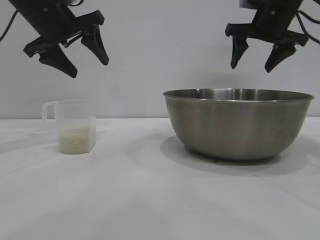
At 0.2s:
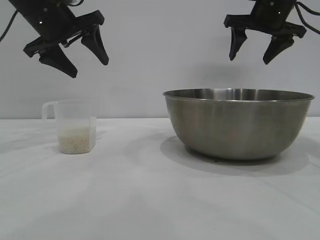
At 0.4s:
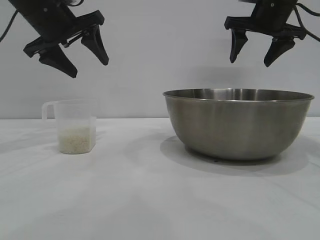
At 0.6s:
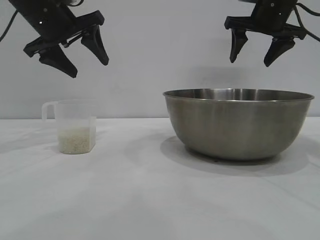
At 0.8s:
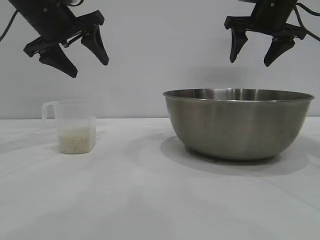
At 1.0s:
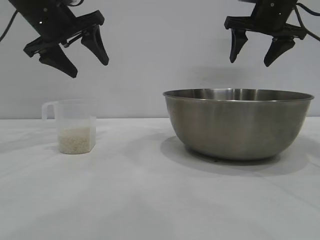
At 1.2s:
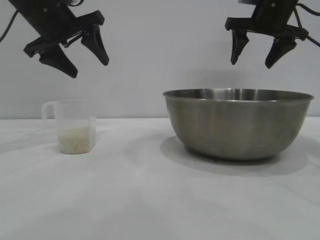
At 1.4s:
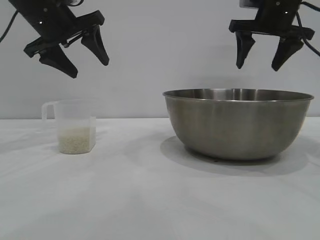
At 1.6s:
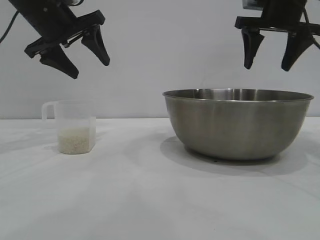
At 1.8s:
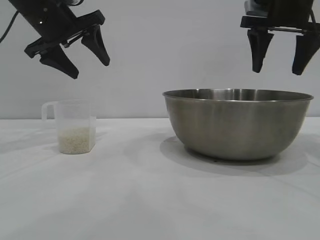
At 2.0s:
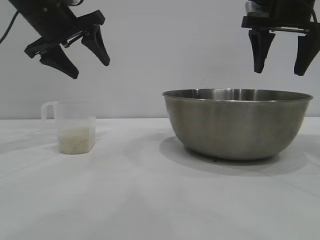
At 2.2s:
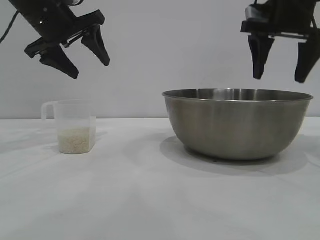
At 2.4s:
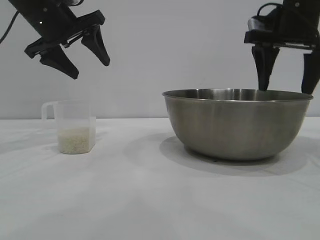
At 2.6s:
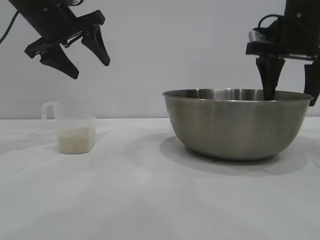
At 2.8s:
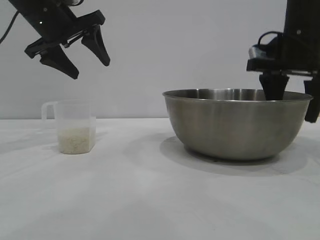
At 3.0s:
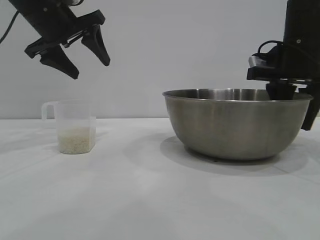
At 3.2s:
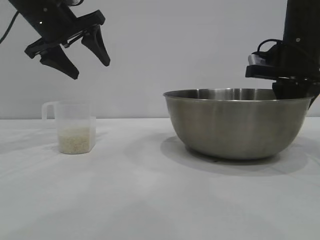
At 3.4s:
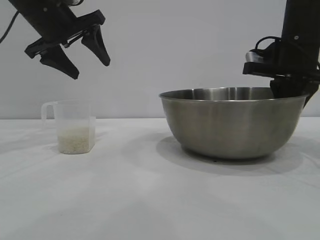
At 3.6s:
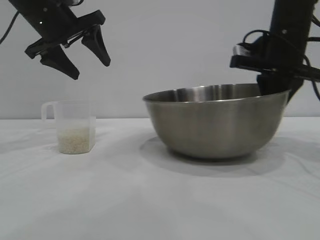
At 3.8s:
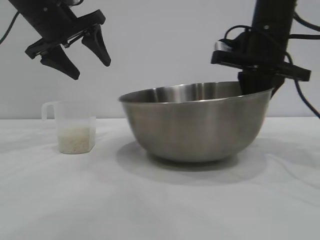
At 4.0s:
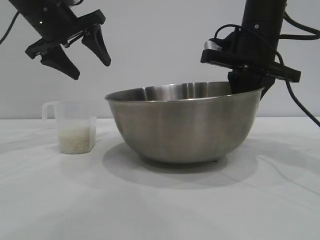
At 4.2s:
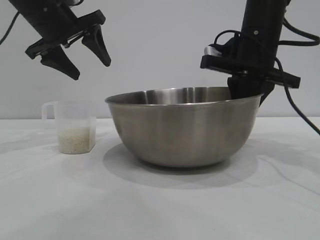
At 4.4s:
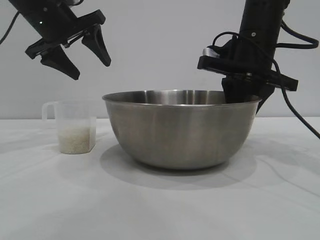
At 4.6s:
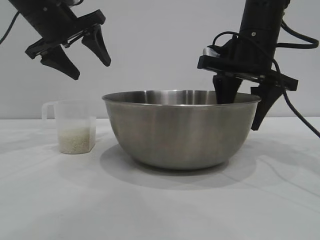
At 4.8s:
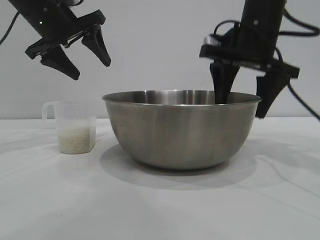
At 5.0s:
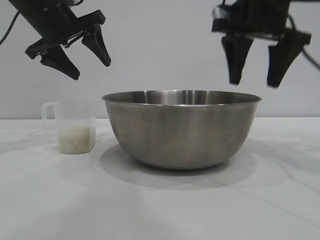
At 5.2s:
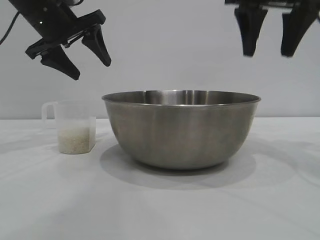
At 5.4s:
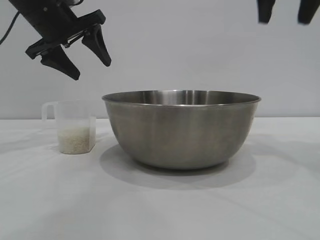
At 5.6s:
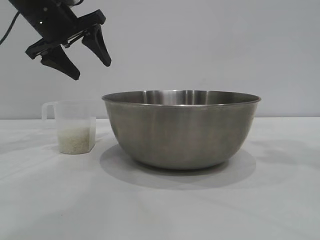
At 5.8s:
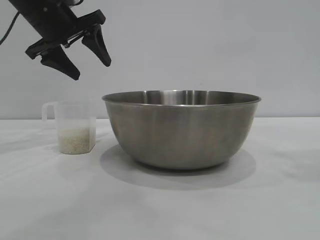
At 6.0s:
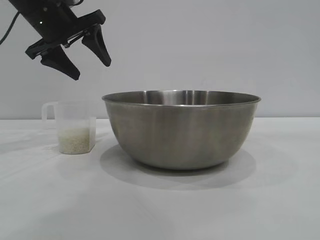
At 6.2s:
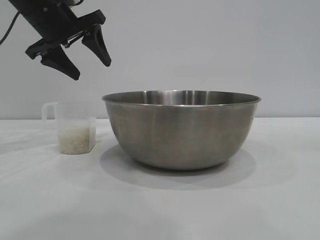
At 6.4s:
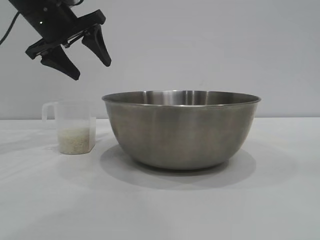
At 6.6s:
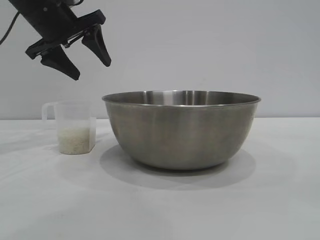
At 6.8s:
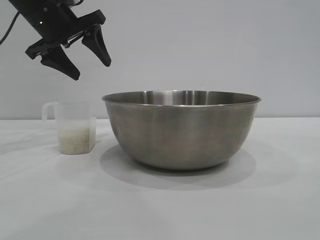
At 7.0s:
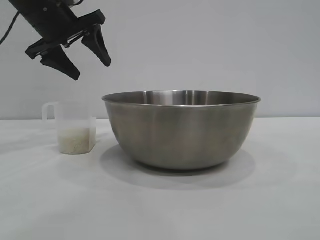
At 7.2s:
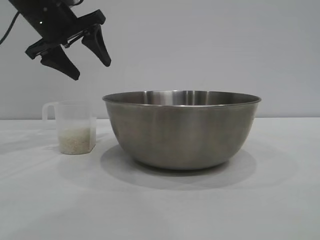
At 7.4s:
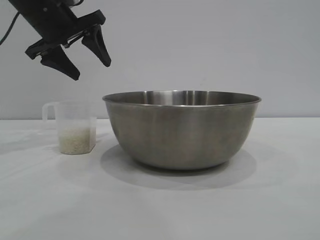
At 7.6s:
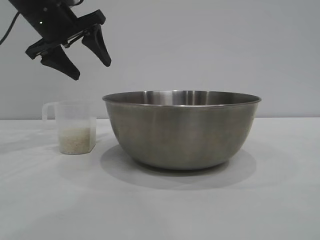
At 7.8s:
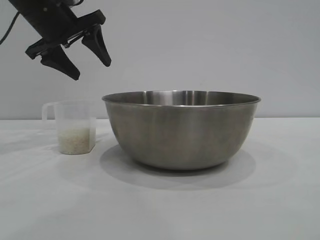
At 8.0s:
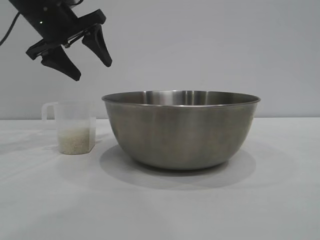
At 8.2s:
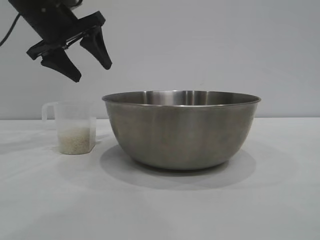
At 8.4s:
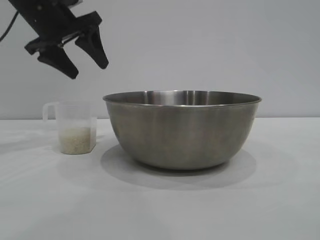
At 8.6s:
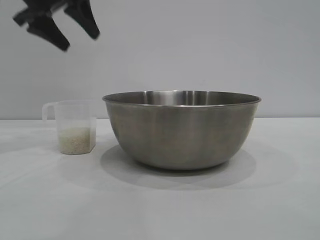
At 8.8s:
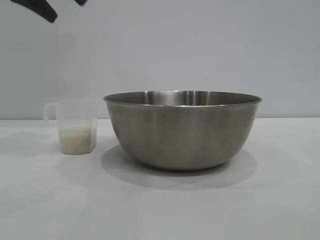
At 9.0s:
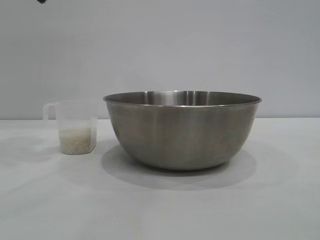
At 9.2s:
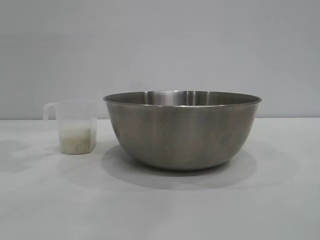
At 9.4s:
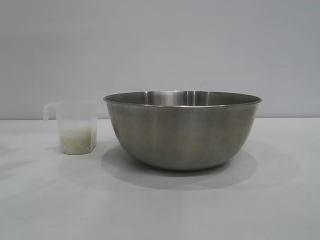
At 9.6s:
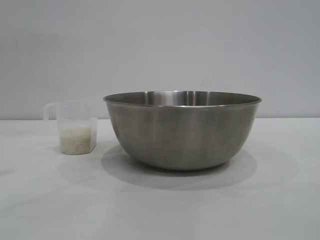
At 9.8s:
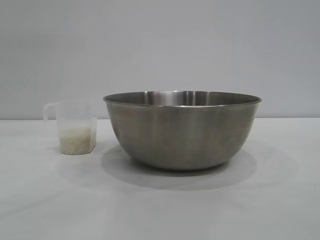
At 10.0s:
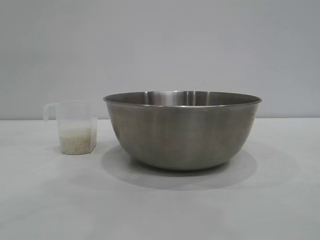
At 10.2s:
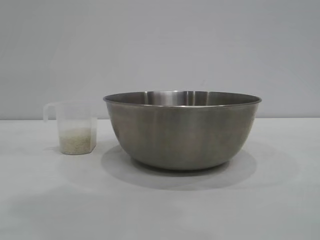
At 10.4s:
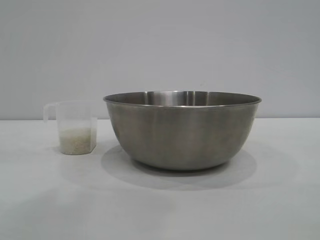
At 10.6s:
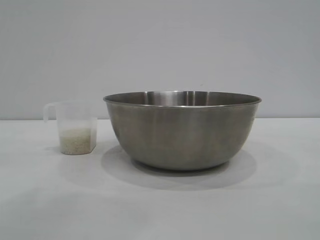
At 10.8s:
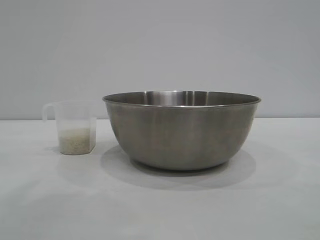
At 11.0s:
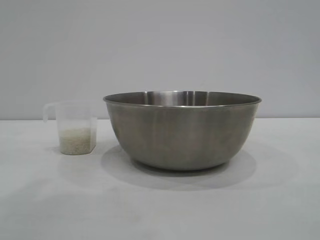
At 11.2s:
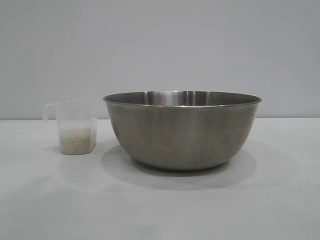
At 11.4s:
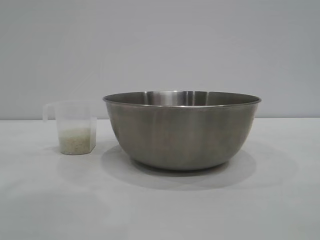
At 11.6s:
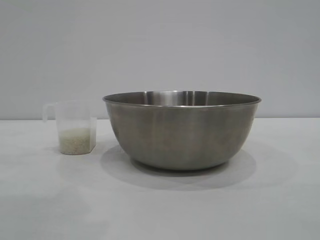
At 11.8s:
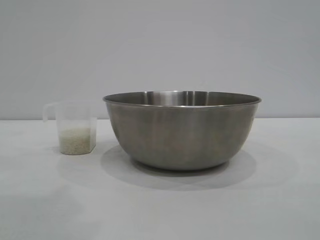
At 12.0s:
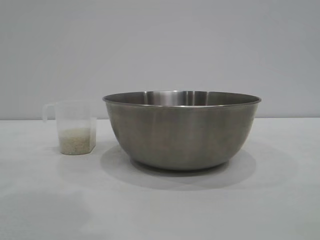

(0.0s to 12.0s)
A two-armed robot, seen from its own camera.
Task of the whole recording: the right gripper grasp the rice container and place it in the center of the table, the left gripper grasp the rice scoop and pour the rice into the rice container.
Step, 0.0s - 5.2s: Move the bowl to the center of view with the right gripper.

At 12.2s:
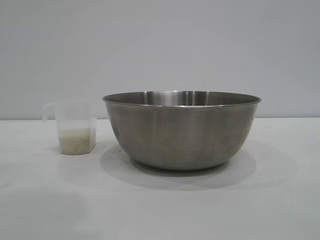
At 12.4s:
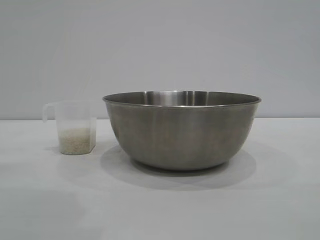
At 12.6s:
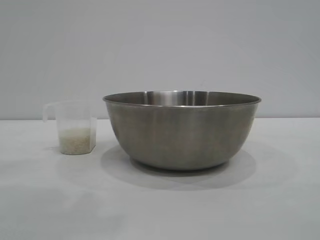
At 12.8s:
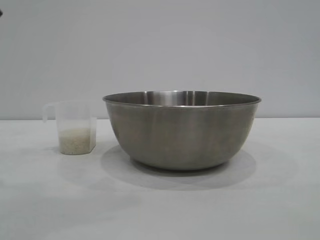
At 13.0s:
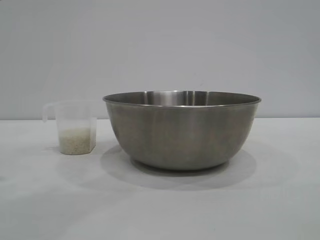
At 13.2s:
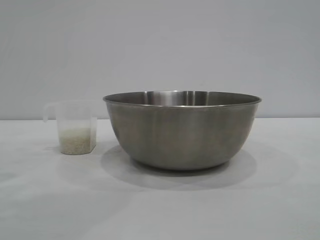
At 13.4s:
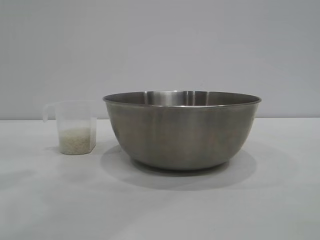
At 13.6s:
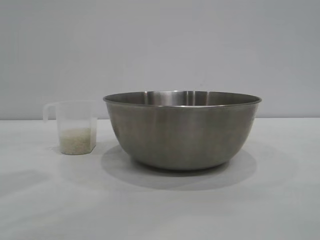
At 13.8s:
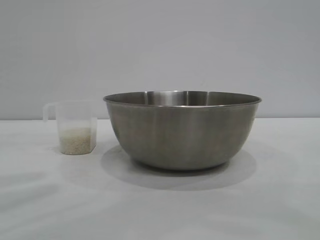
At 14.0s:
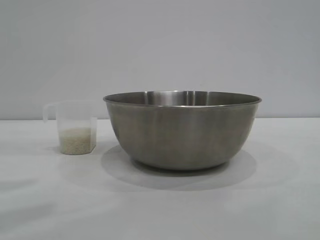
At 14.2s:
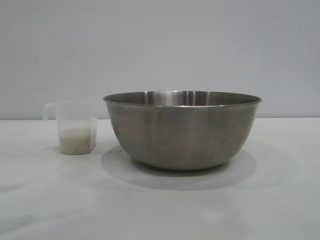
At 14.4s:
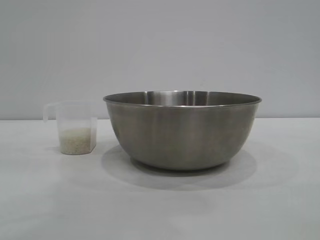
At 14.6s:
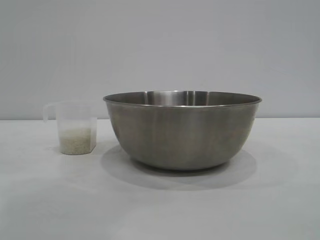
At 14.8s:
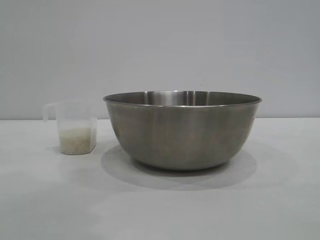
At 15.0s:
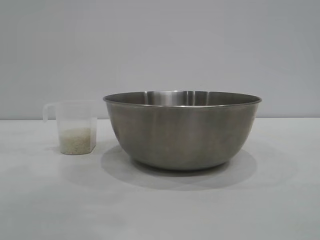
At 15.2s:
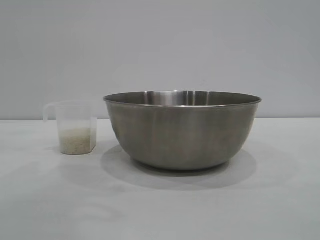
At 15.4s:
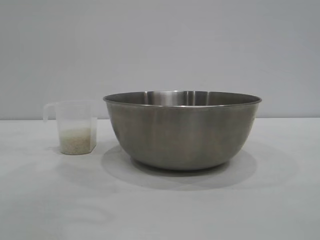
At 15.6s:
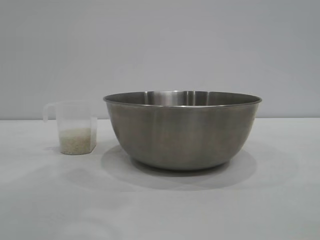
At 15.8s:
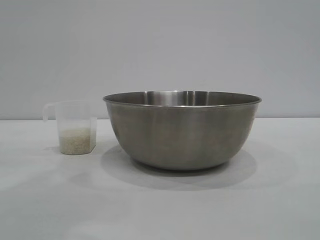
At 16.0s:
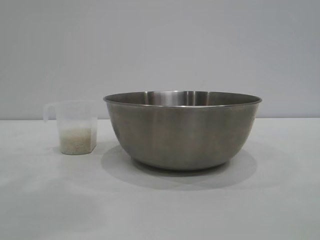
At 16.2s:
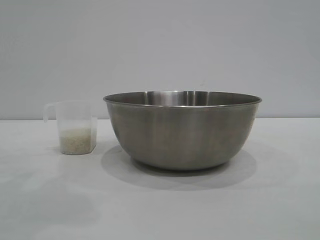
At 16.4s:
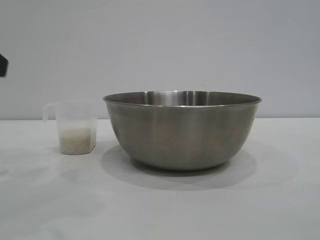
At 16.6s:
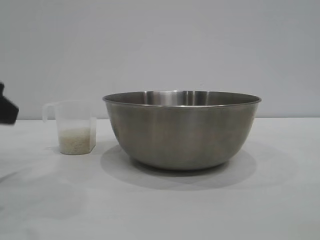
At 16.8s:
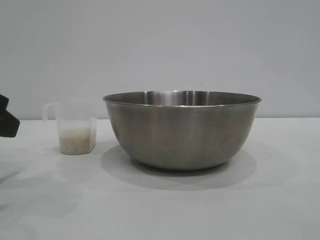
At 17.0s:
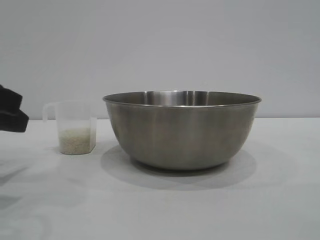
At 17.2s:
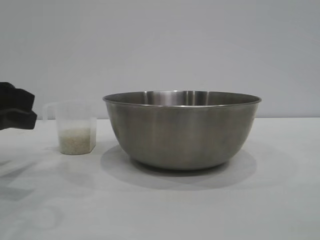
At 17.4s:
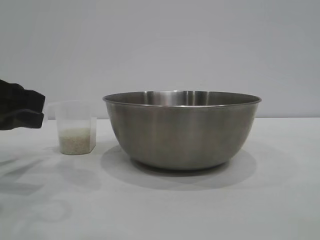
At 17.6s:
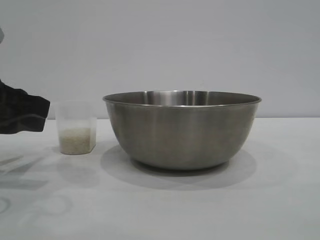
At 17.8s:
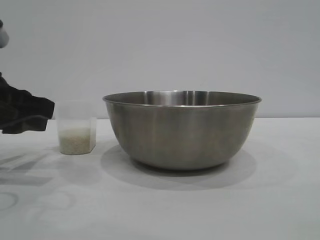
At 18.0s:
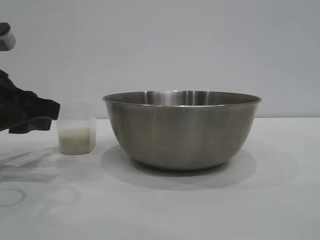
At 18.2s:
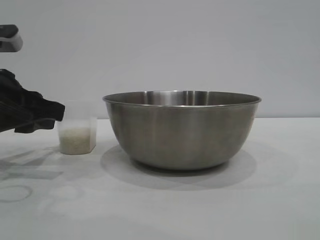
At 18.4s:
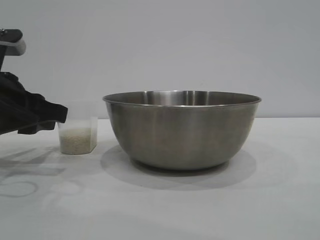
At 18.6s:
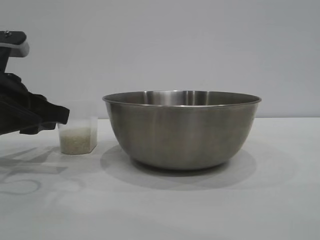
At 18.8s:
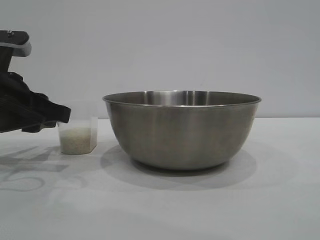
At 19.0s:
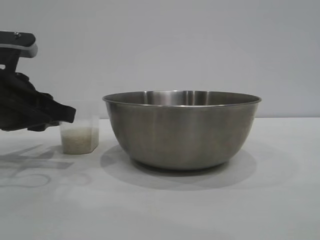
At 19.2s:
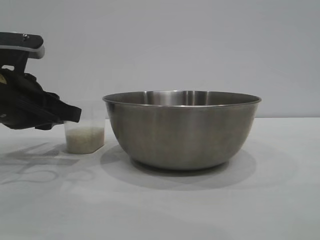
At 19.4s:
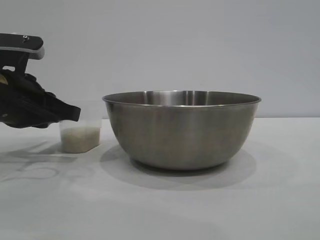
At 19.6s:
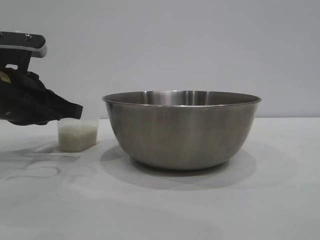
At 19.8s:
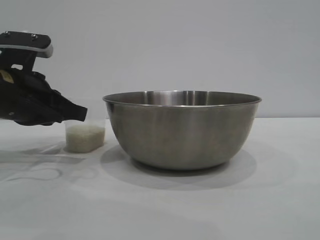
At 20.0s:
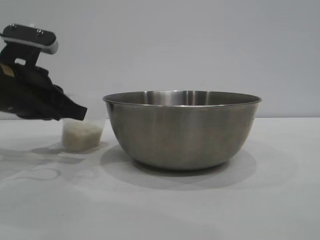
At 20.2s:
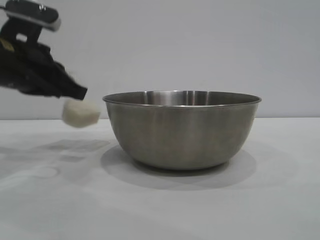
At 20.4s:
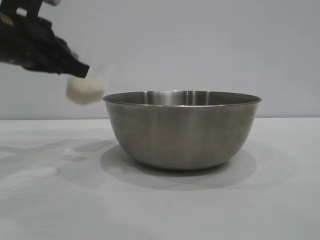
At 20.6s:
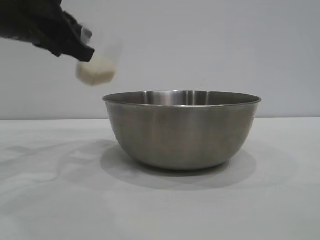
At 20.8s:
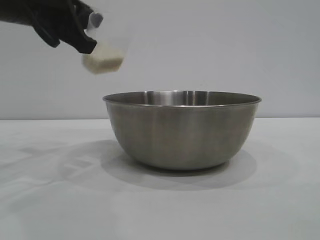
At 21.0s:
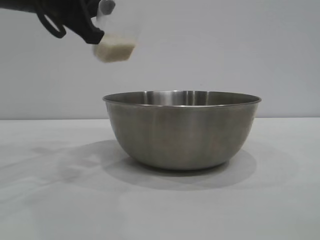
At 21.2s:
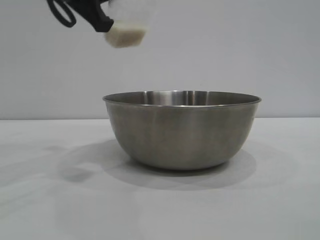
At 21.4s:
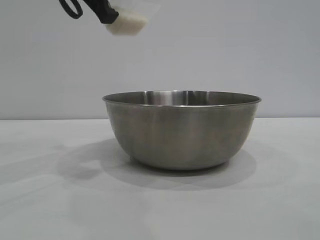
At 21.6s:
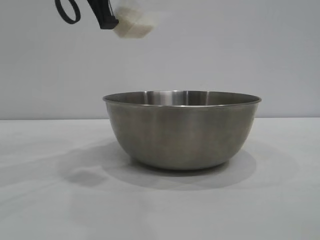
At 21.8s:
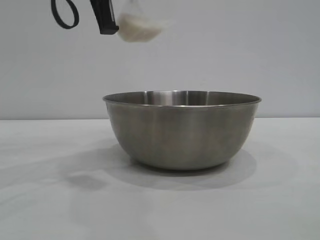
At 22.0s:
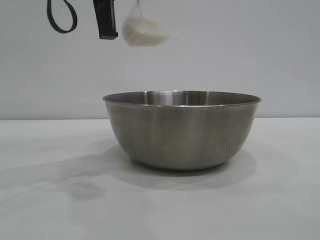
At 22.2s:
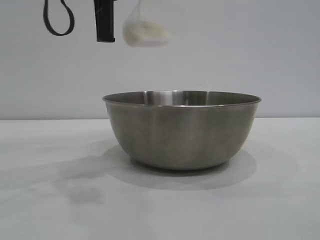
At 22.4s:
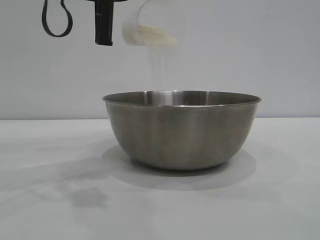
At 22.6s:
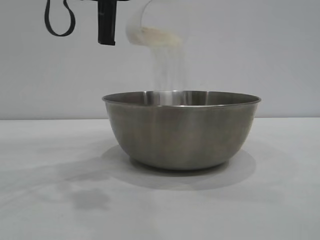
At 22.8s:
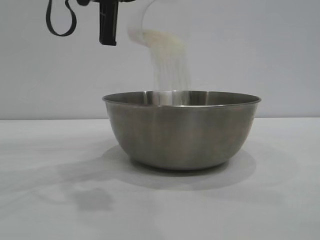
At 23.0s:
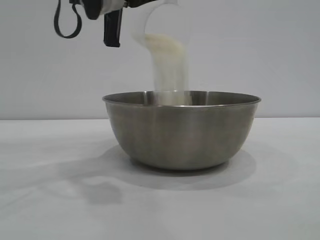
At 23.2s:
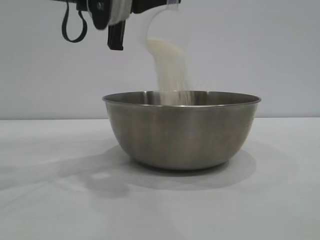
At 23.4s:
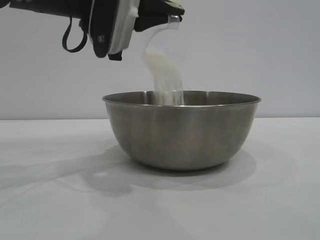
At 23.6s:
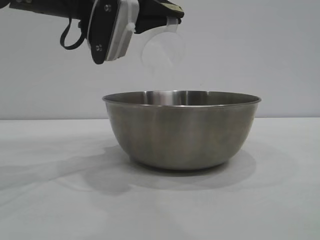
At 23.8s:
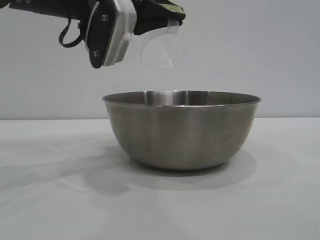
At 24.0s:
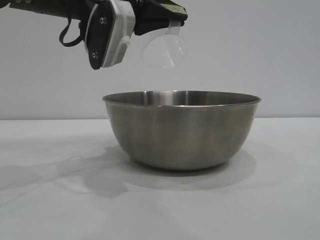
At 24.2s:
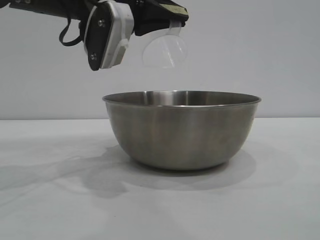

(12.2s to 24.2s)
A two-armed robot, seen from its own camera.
Task of the whole recording: the right gripper grasp the rice container and place it in the center of the table, the left gripper grasp the rice scoop and pour the rice into the rice container.
Step, 12.2s - 20.0s: Pick up the cup with rice in it with the left gripper.
